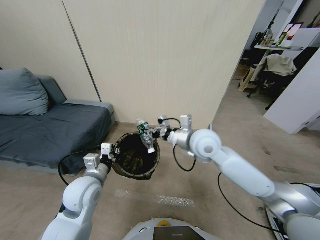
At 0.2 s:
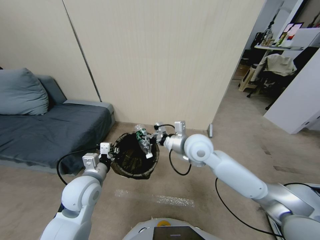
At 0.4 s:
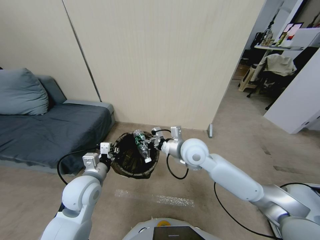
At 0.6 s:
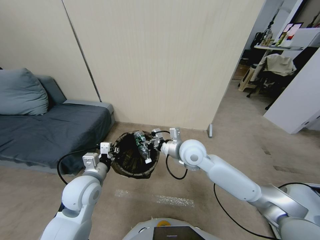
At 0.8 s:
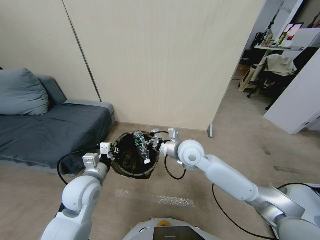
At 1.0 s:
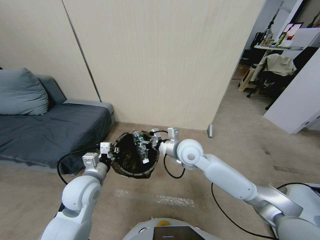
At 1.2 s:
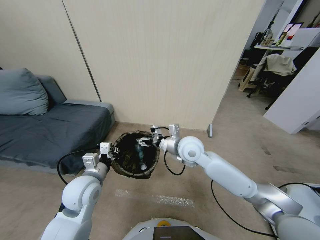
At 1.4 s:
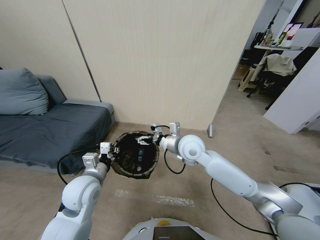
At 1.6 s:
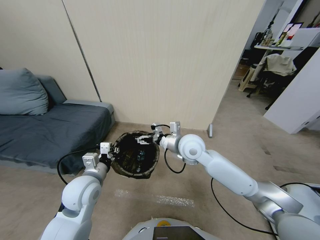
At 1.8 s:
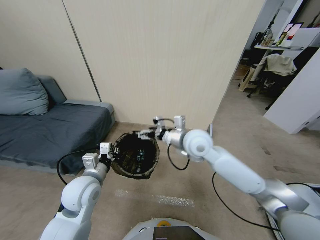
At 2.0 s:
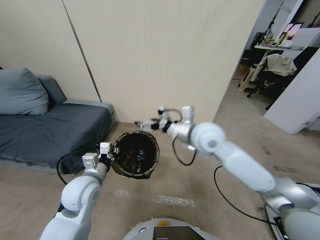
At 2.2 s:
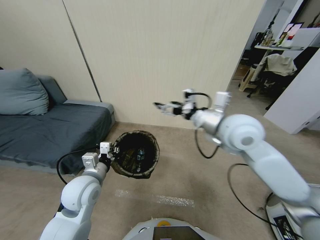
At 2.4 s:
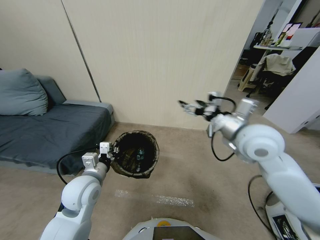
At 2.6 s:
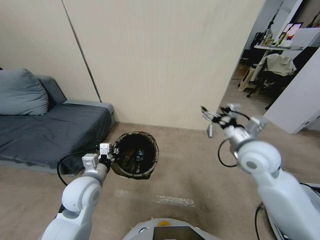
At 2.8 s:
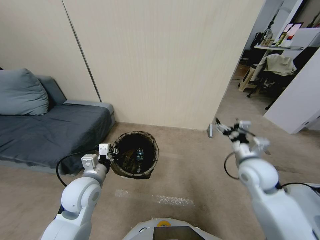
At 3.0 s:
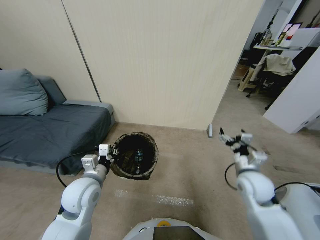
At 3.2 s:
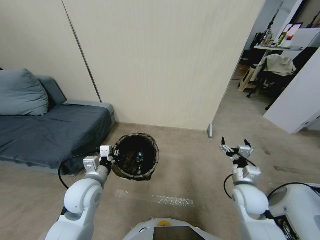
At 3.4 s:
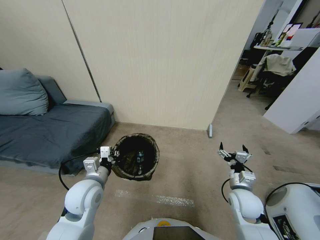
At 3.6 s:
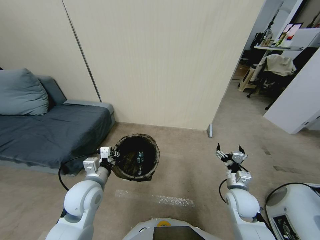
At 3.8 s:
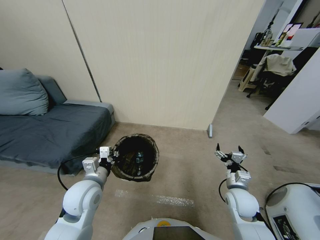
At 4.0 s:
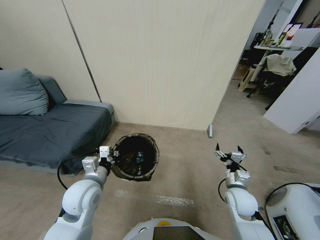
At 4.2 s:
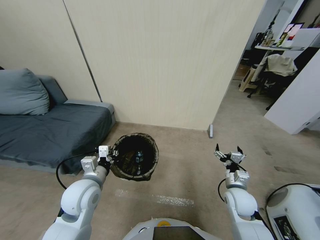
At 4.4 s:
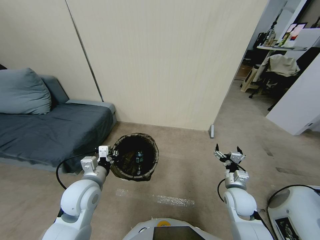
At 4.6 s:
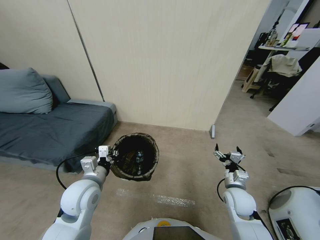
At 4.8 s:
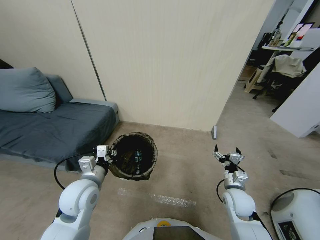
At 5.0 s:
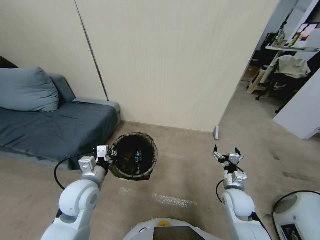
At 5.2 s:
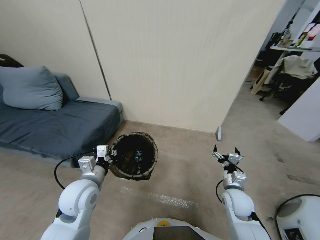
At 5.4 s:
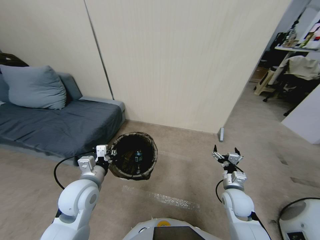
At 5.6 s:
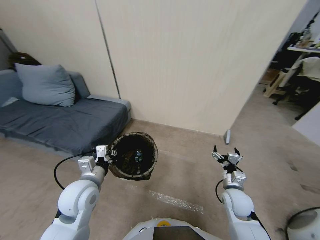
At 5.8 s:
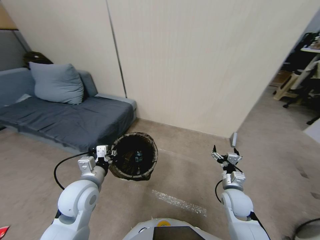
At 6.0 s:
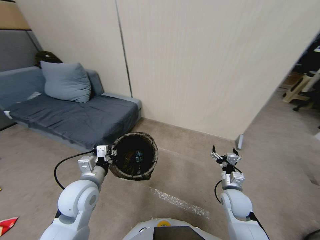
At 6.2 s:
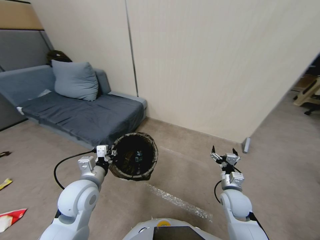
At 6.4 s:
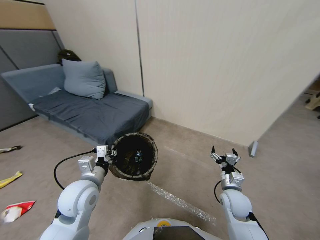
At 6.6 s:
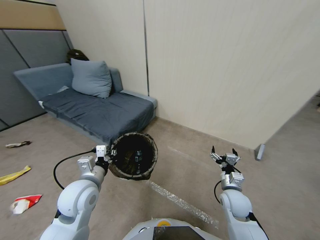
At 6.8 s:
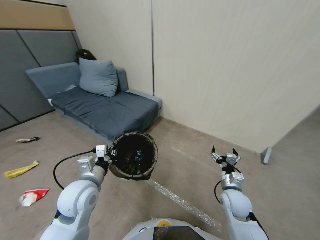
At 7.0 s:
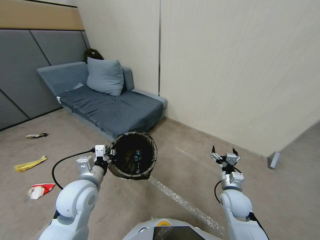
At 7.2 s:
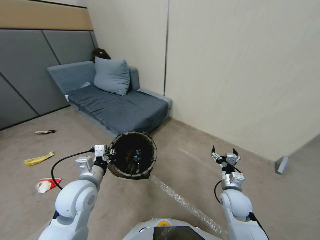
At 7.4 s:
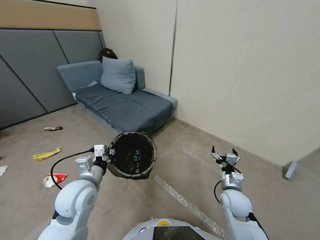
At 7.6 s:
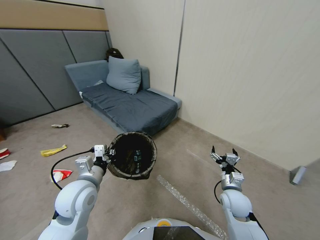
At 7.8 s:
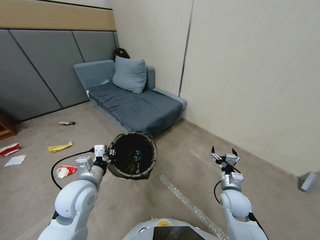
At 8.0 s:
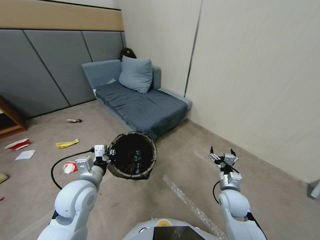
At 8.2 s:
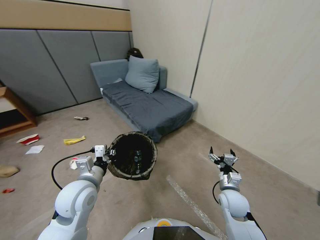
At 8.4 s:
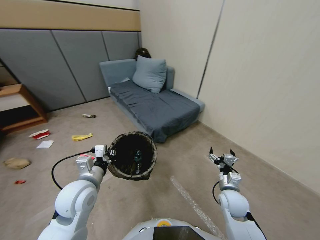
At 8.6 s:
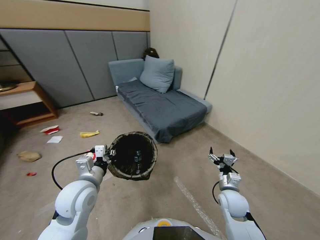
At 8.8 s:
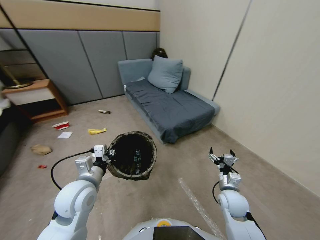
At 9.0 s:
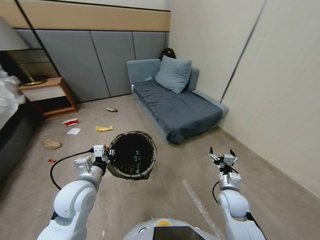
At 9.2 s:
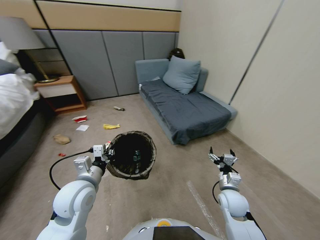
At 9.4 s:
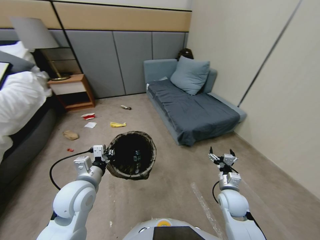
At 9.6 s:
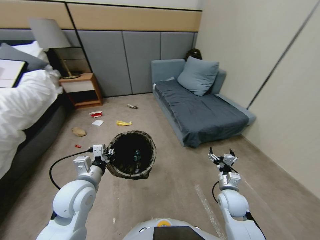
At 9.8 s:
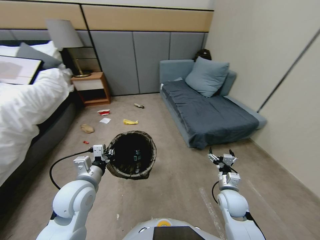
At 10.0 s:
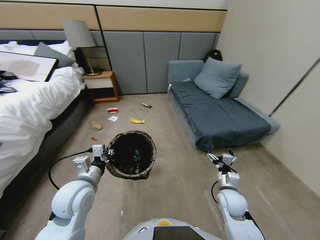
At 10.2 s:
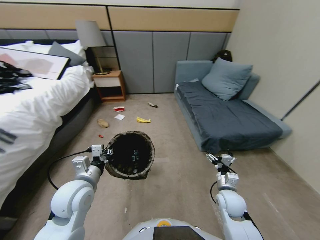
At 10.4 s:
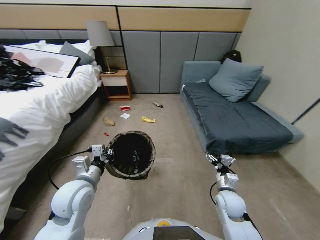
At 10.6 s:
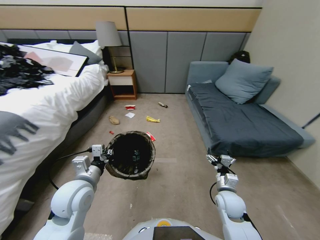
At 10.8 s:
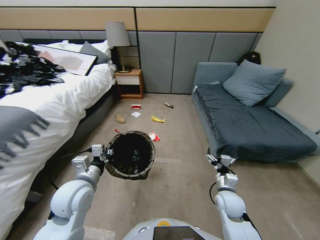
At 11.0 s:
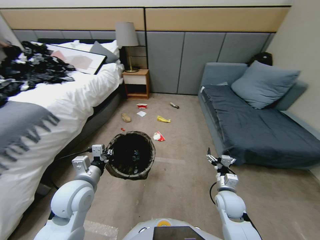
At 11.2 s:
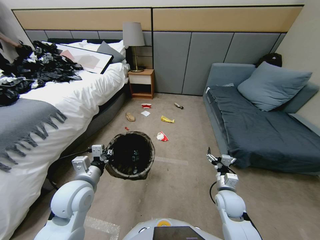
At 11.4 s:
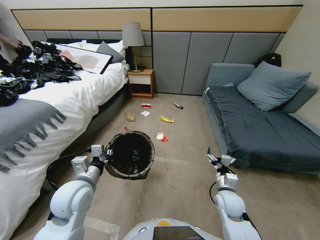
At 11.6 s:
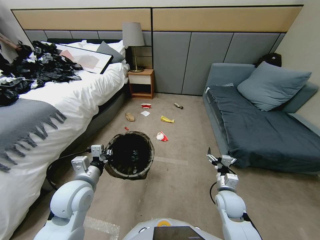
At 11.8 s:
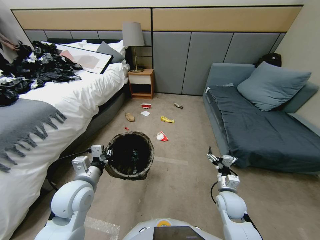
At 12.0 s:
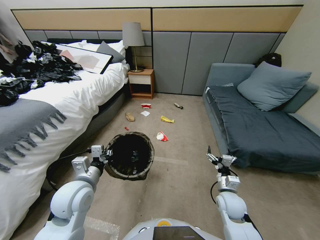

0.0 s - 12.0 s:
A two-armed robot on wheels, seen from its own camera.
Task of the whole recording: Pick up the trash bin, then pick up the garbage from the floor and place it into the trash bin.
0.0 s - 1.6 s: The right gripper opens.
1.6 s - 3.0 s: The right gripper moves to the right, backward and downward, approximately 25 cm.
3.0 s - 4.4 s: The right gripper heads downward, covering roughly 5 cm.

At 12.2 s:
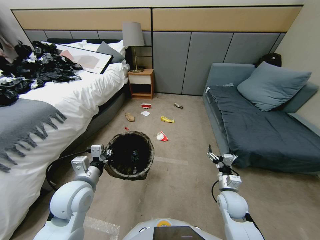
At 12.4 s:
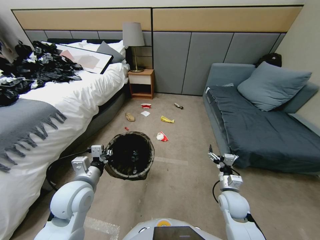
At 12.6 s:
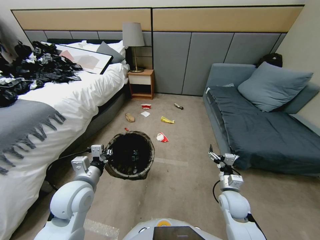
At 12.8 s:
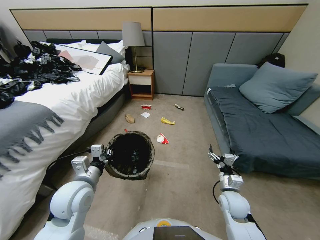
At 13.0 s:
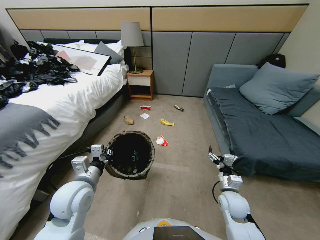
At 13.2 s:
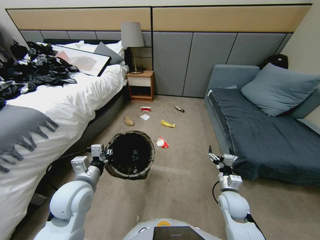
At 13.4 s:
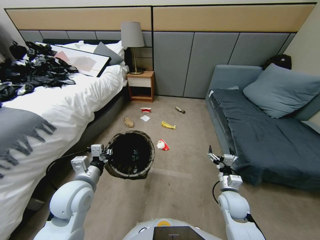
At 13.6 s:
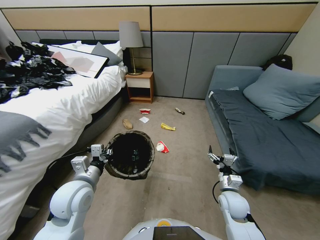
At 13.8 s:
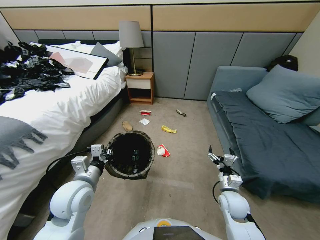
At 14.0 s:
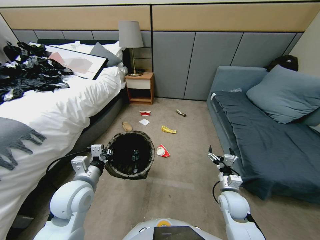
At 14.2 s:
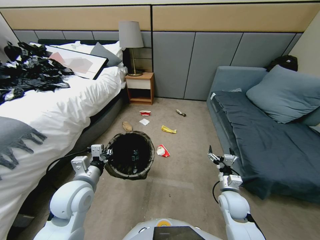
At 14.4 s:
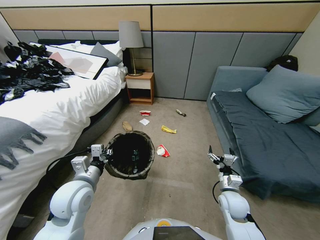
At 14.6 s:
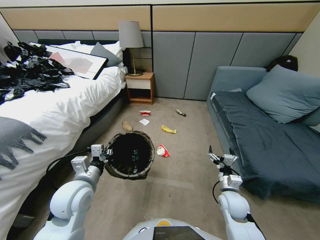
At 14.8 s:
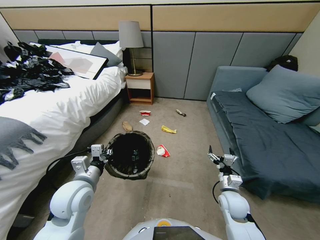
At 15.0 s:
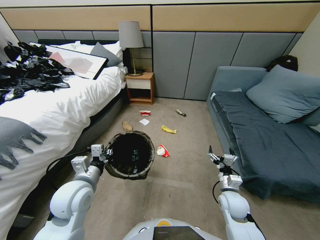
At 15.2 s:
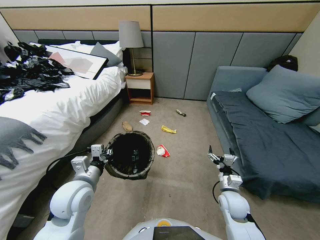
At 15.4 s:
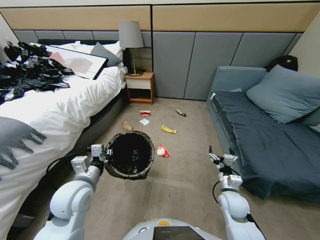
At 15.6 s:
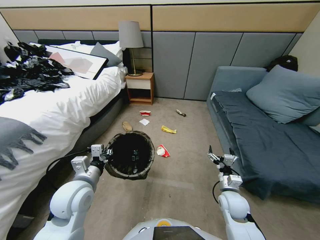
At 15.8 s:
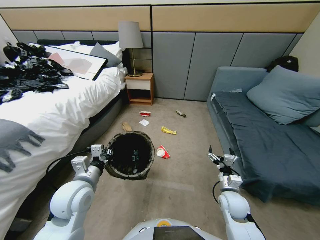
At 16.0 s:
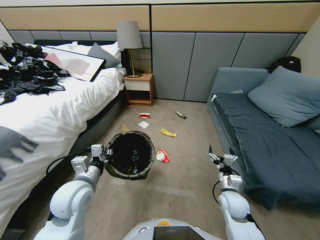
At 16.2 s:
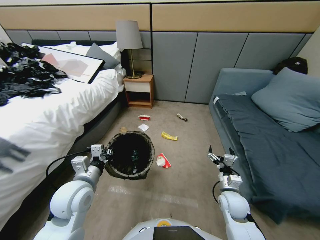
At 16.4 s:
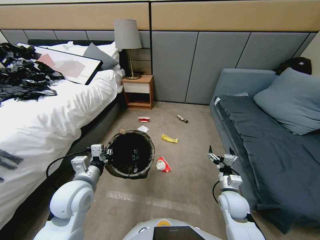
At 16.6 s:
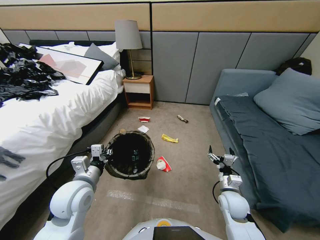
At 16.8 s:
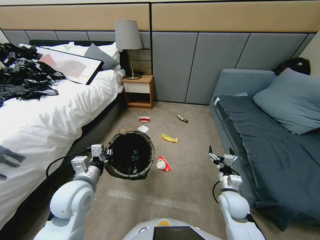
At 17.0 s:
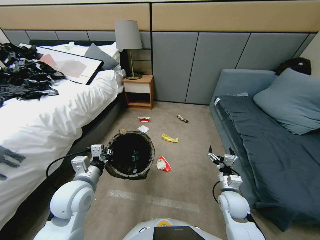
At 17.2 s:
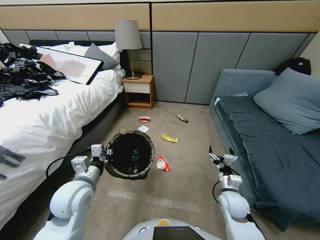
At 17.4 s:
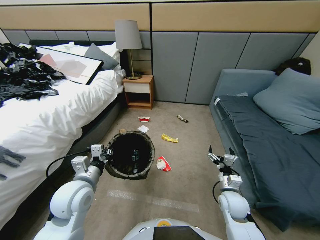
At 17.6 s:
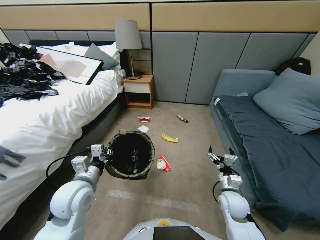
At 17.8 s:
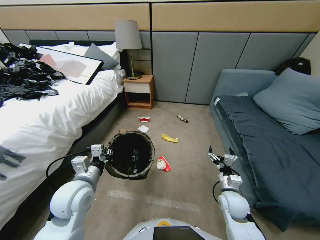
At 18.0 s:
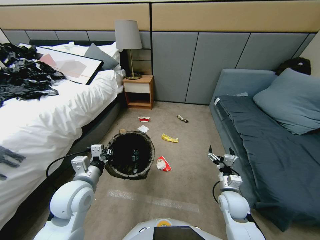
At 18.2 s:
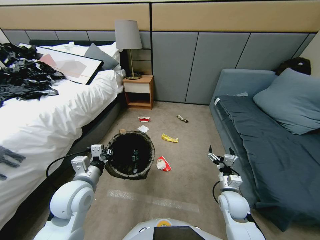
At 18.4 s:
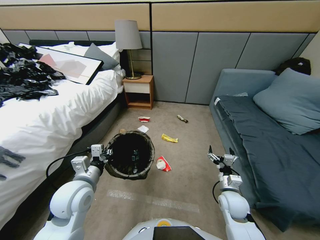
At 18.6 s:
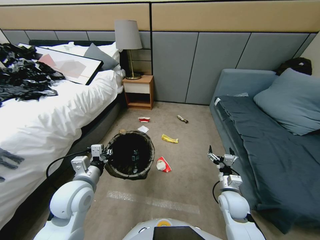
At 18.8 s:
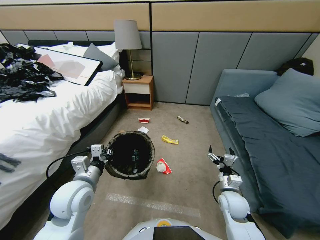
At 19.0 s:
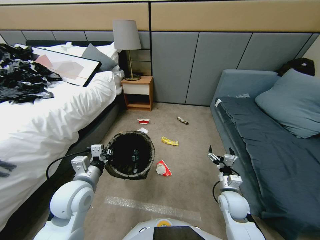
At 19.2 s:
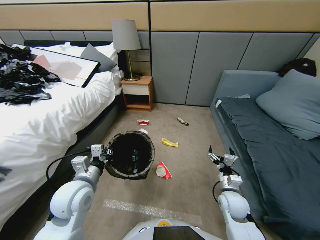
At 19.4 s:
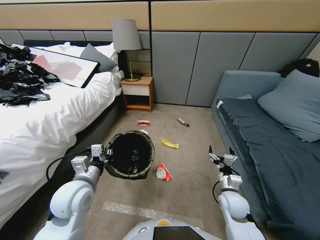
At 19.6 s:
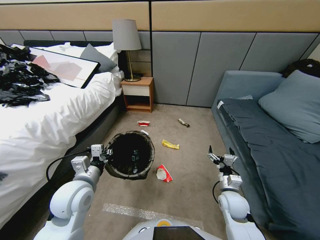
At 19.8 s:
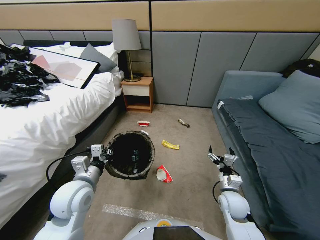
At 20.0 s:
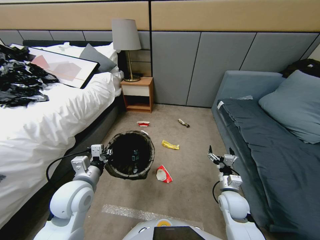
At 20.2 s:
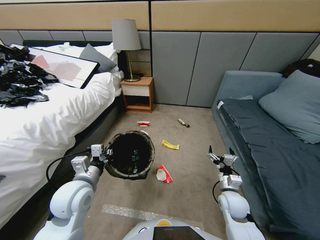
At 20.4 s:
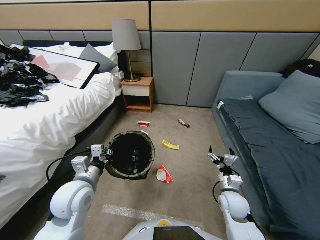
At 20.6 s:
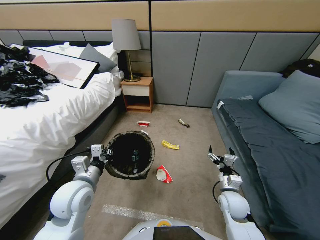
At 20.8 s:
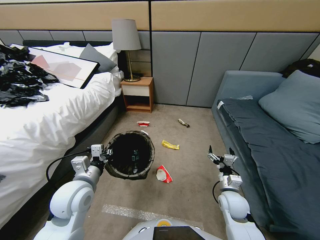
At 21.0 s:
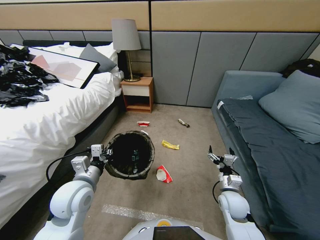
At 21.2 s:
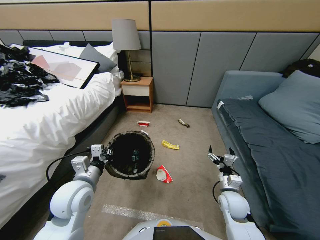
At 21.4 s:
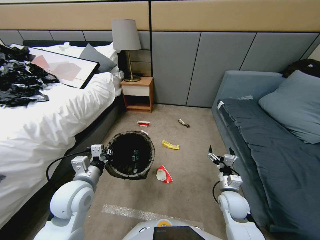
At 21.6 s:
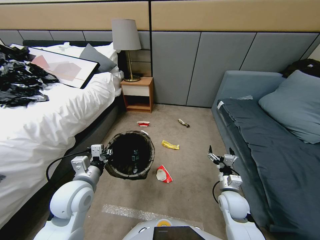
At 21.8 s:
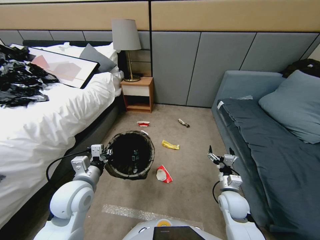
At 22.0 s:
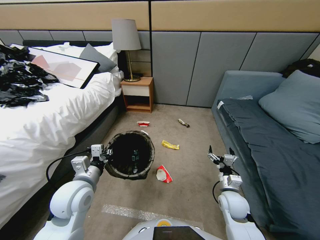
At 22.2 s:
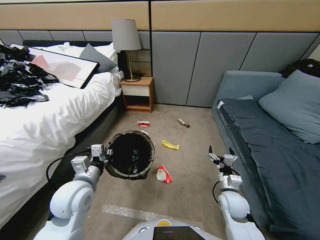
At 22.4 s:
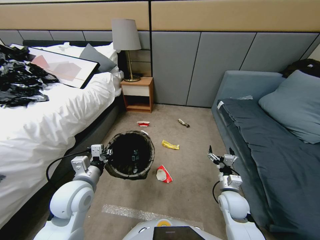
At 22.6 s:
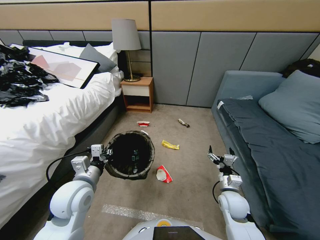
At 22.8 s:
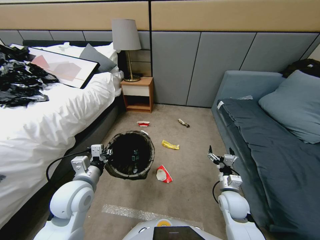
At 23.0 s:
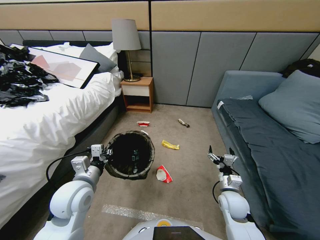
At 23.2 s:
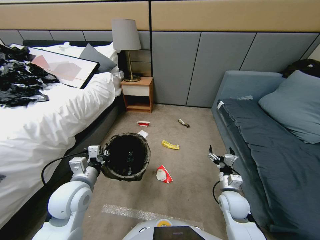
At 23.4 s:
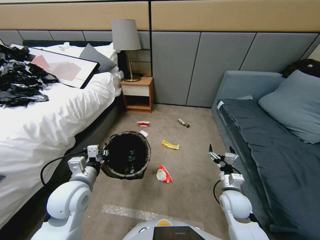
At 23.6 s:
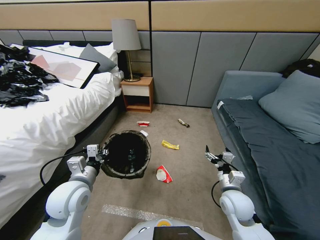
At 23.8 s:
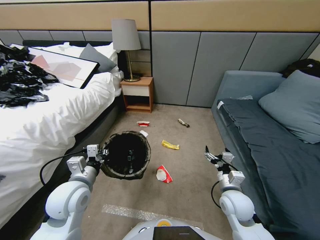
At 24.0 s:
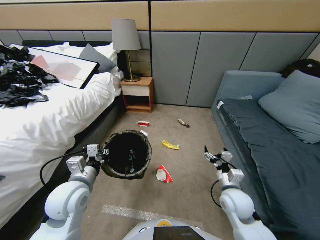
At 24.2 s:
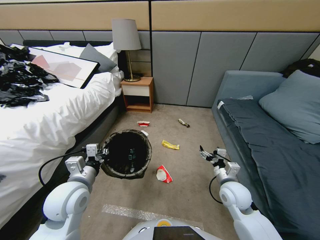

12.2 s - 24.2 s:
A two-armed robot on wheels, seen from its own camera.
Task of the whole recording: Pick up the trash bin, then pick up the garbage from the floor and place it into the trash bin.
13.8 s - 15.2 s: Both grippers stay about where they are.
16.6 s - 22.6 s: Both grippers stay about where they are.
22.6 s - 24.2 s: The right gripper moves upward, roughly 5 cm.
